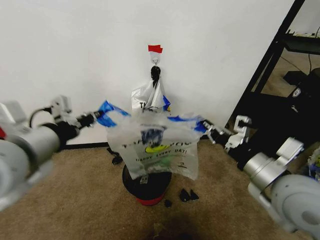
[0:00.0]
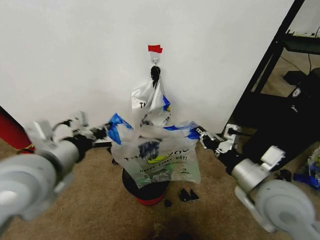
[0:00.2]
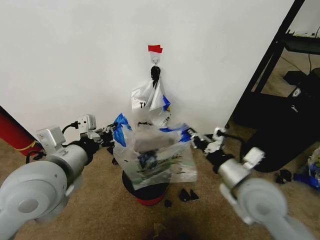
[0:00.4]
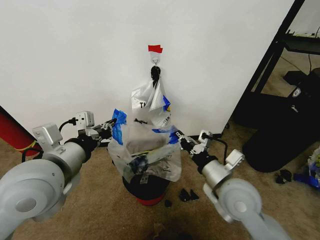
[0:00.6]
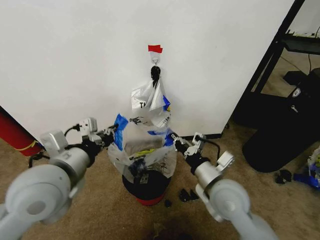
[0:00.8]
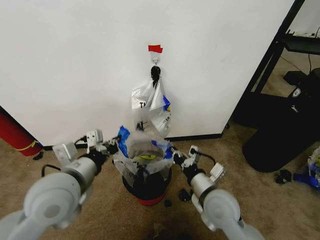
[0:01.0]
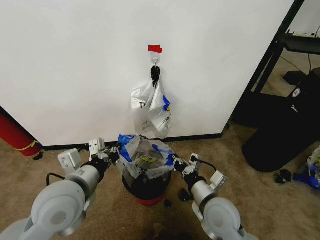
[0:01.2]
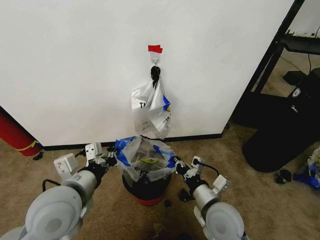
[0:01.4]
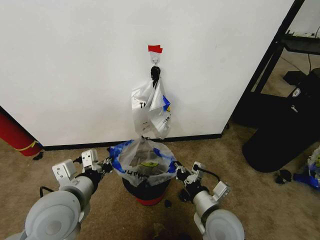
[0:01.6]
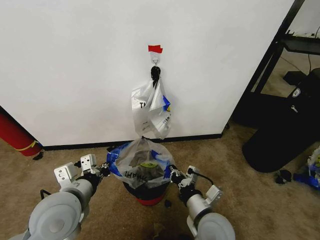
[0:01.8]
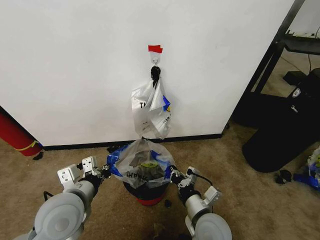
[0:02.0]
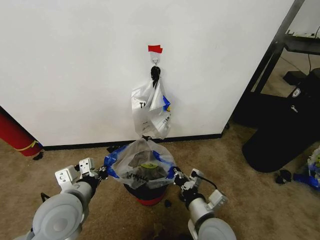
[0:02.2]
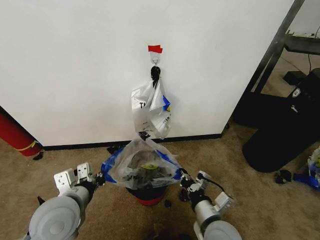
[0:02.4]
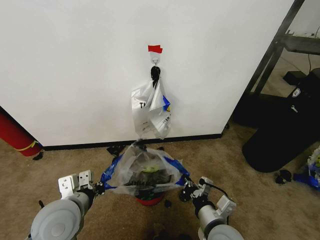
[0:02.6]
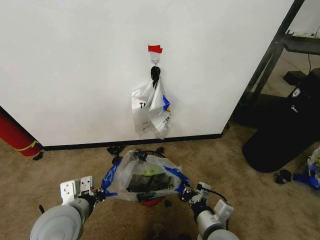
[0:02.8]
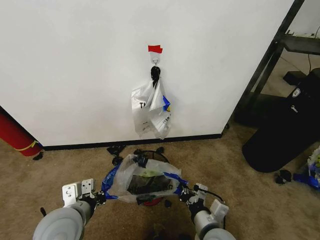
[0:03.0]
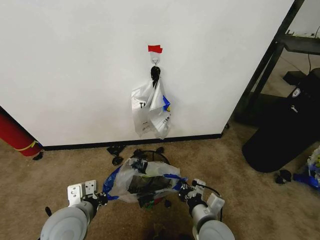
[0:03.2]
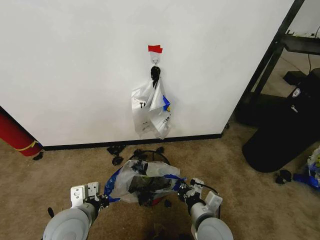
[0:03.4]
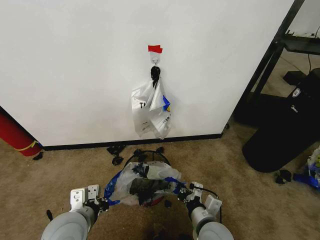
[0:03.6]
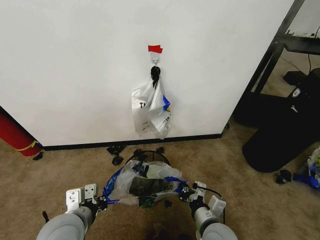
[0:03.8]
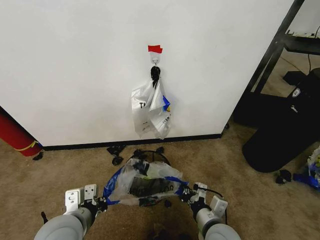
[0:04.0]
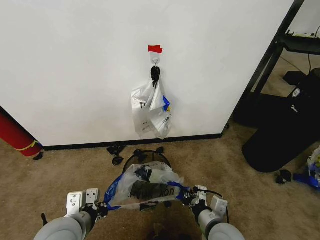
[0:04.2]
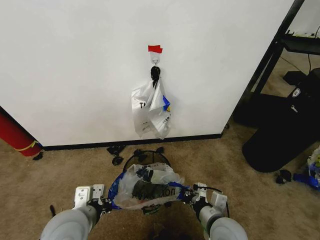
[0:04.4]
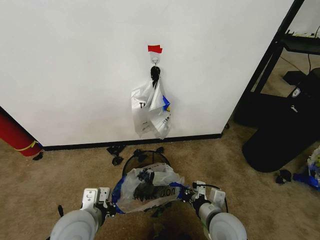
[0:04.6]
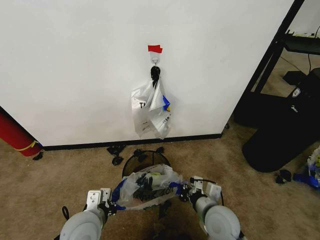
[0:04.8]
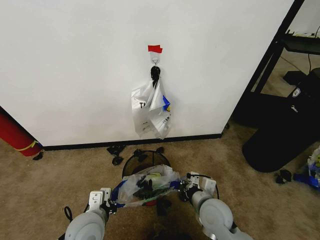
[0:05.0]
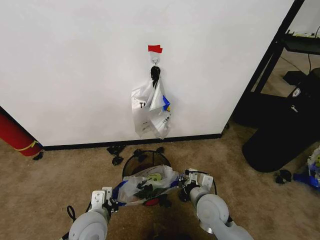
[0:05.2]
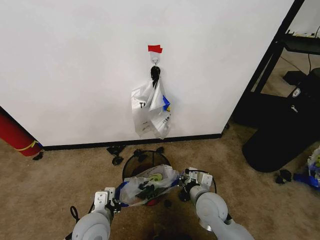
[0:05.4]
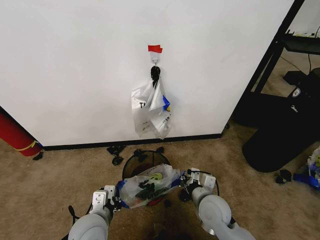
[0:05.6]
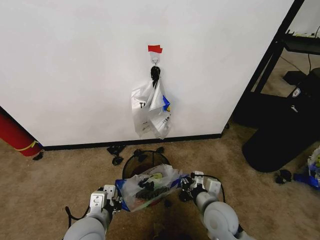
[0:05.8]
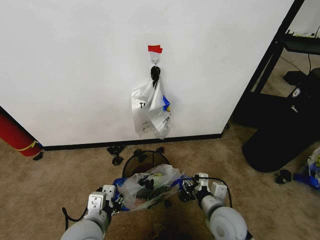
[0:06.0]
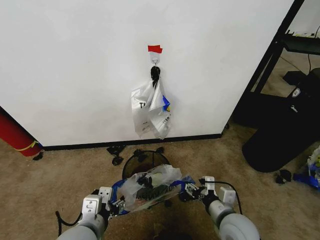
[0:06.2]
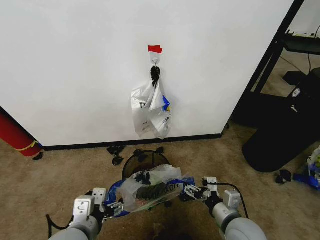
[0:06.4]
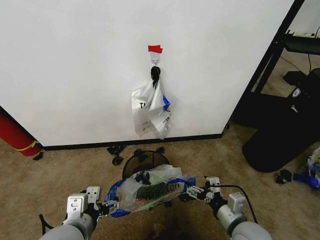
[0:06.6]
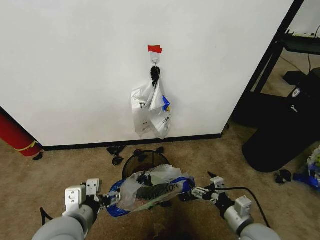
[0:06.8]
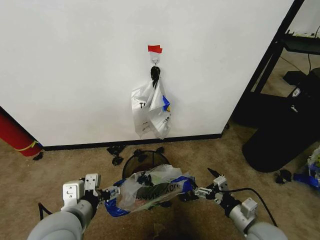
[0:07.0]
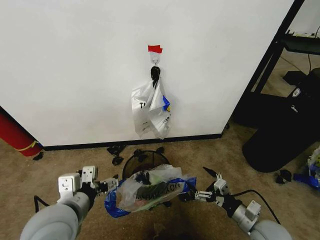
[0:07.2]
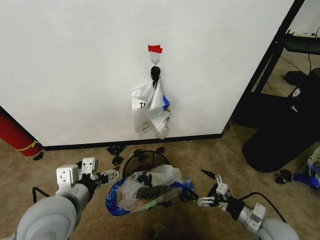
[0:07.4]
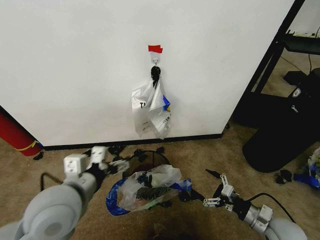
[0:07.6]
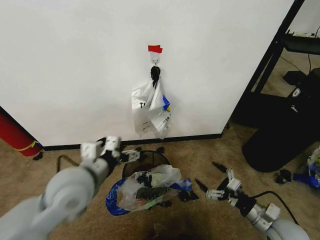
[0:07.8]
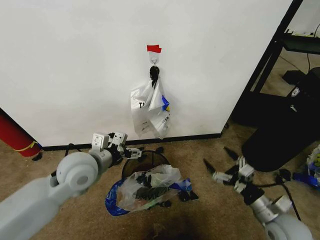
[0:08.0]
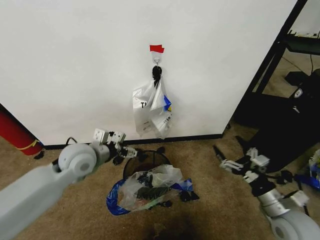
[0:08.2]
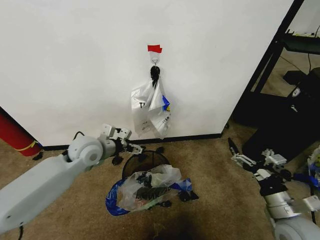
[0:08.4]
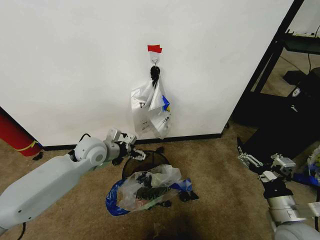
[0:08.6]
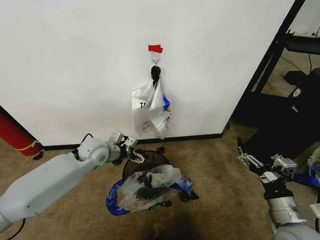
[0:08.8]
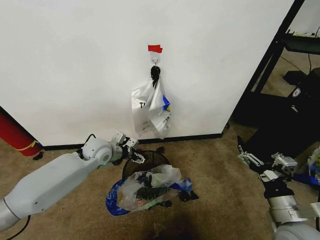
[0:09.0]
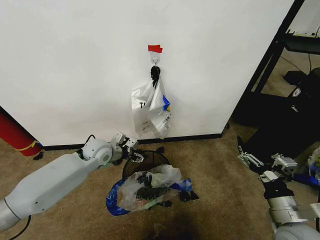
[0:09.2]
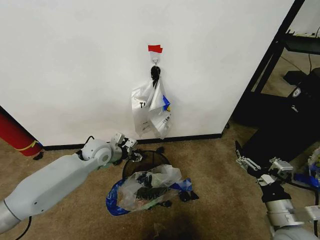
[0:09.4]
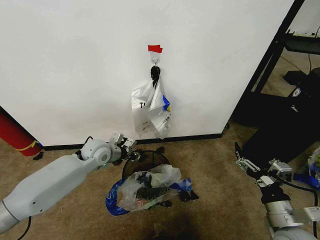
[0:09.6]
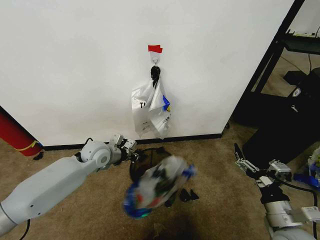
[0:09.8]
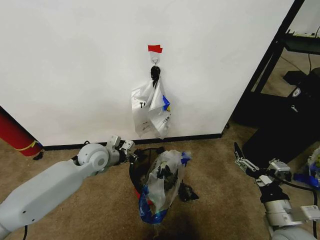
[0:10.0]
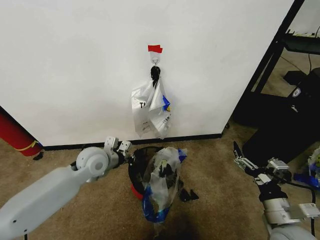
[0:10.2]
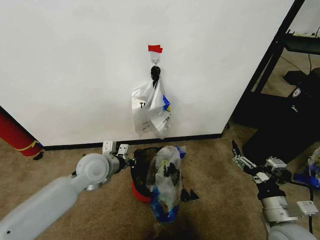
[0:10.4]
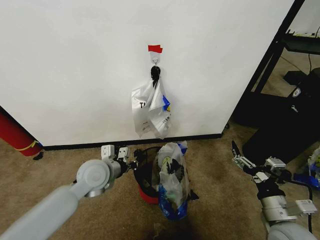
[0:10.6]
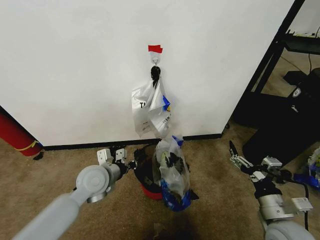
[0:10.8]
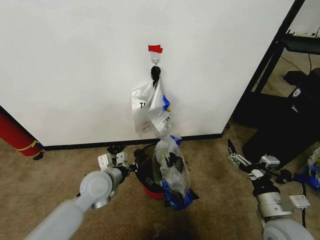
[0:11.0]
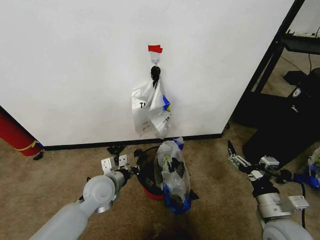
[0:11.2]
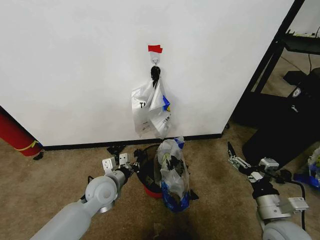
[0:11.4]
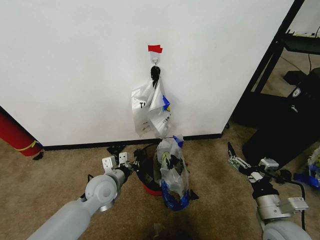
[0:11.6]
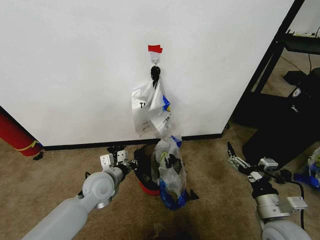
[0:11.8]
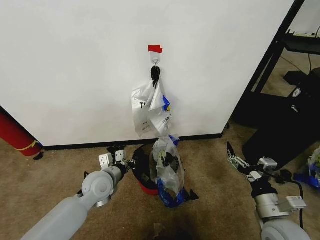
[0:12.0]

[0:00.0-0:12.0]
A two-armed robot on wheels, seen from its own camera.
Task of the whole recording: Pick up the garbage bag from the wall and place it over the trash bin.
0:00.0 to 0:01.6: The right gripper shifts approximately 20 cm downward and to the left; the left gripper goes some 15 cm downward.
0:01.6 to 0:03.0: The right gripper moves approximately 5 cm, while the left gripper shifts some 5 cm downward.
0:03.0 to 0:04.4: The grippers move only a little.
0:04.4 to 0:06.0: The right gripper reaches some 10 cm forward, then returns, and opens up. Meanwhile the left gripper travels downward and back again, some 10 cm each way, and opens up.
0:06.0 to 0:07.6: The left gripper goes about 10 cm upward, and opens; the right gripper is displaced to the right by some 15 cm, and opens up.
0:07.6 to 0:09.0: The left gripper is displaced forward and downward by about 25 cm. Meanwhile the right gripper is displaced upward by some 10 cm.
0:09.0 to 0:10.4: The left gripper shifts about 10 cm backward, and closes up.
0:10.4 to 0:12.0: The left gripper heads downward, covering approximately 5 cm.

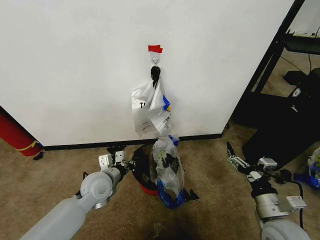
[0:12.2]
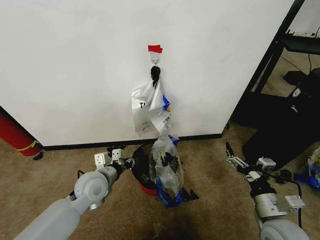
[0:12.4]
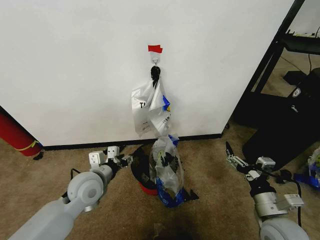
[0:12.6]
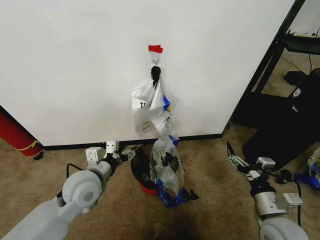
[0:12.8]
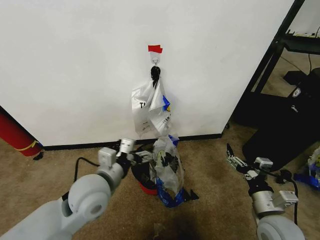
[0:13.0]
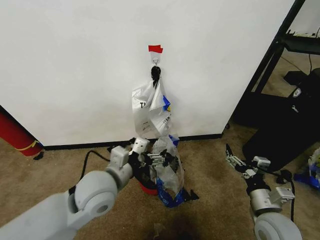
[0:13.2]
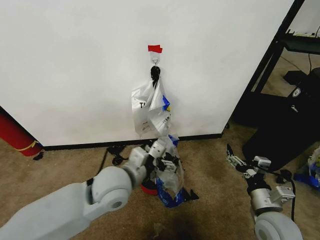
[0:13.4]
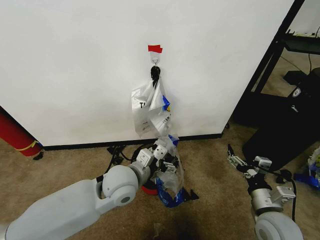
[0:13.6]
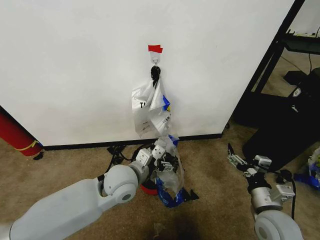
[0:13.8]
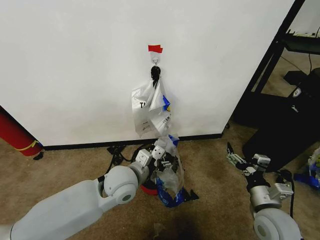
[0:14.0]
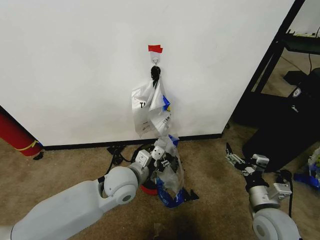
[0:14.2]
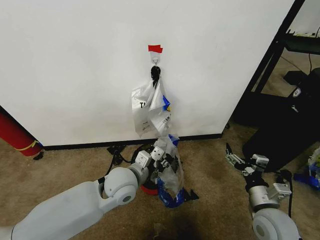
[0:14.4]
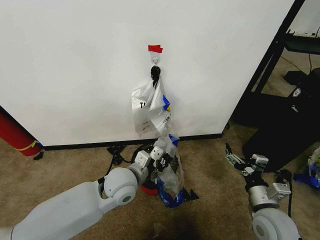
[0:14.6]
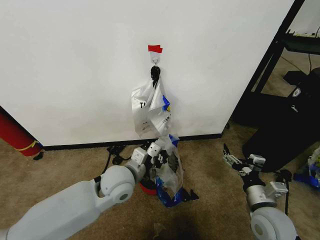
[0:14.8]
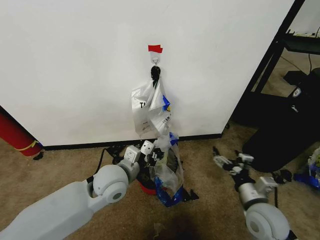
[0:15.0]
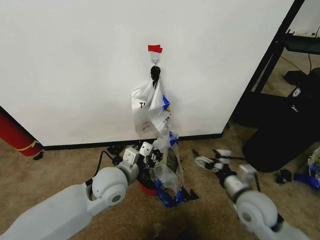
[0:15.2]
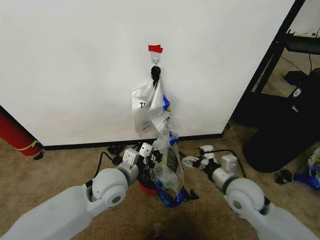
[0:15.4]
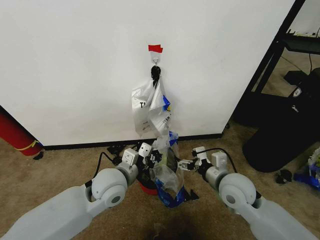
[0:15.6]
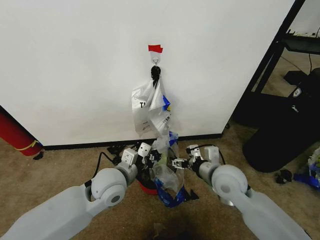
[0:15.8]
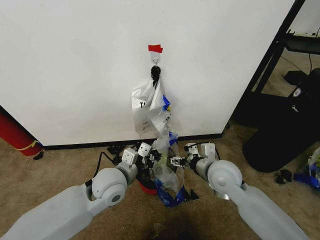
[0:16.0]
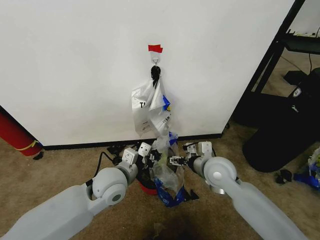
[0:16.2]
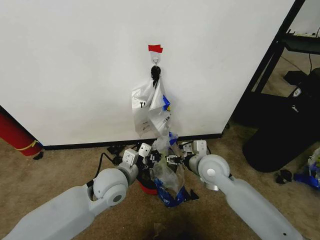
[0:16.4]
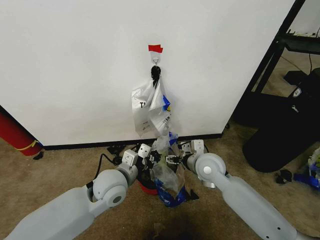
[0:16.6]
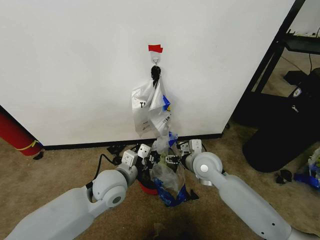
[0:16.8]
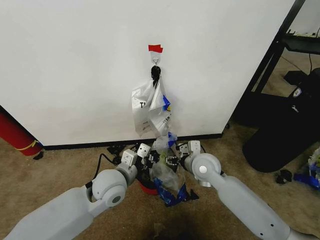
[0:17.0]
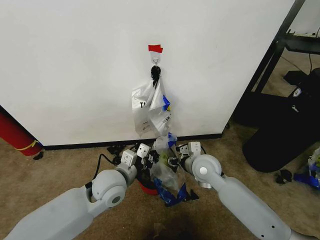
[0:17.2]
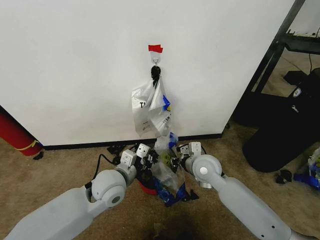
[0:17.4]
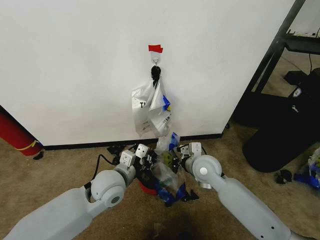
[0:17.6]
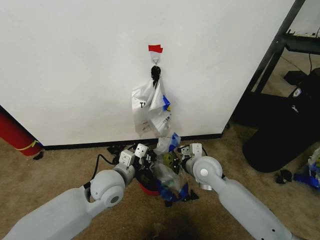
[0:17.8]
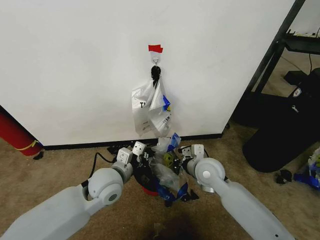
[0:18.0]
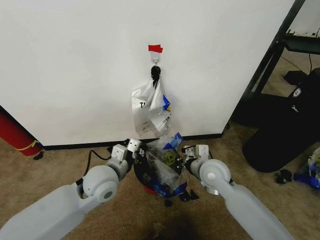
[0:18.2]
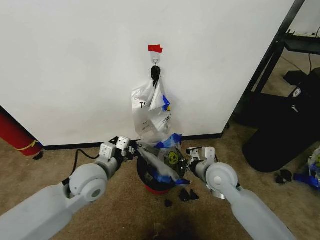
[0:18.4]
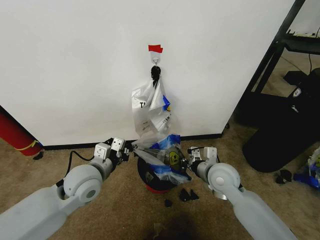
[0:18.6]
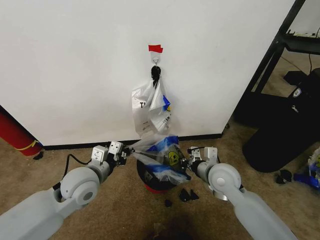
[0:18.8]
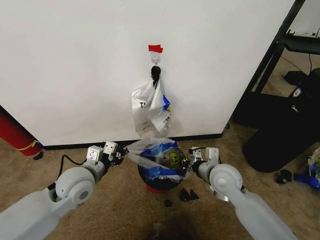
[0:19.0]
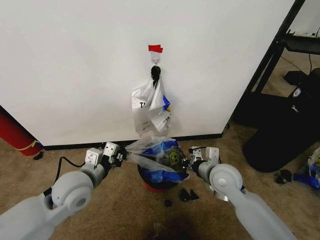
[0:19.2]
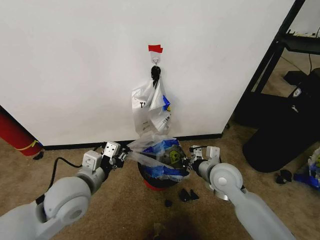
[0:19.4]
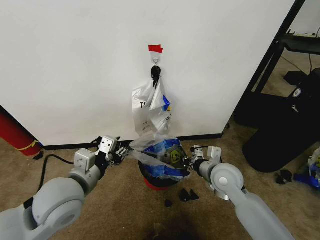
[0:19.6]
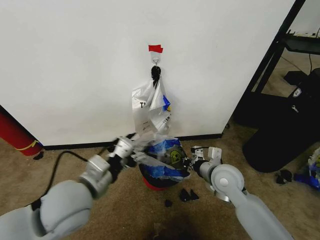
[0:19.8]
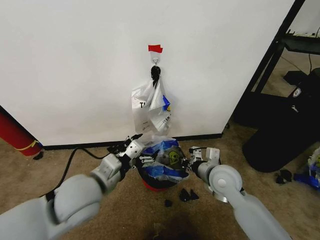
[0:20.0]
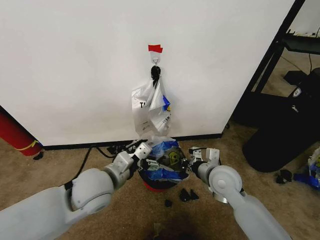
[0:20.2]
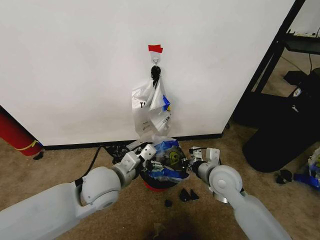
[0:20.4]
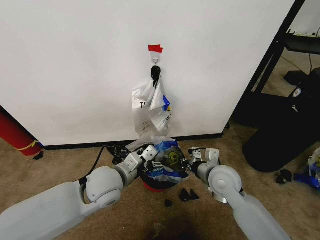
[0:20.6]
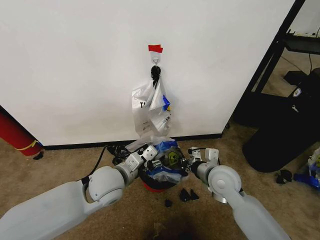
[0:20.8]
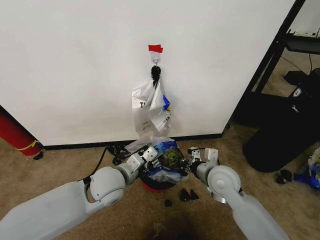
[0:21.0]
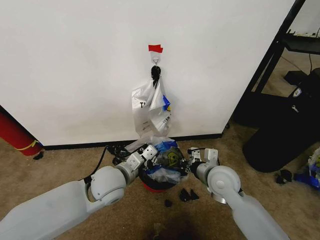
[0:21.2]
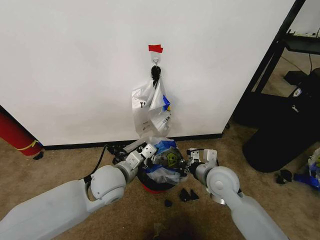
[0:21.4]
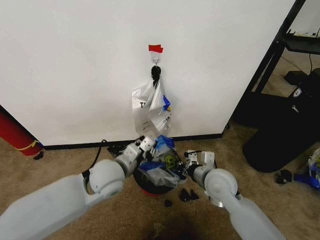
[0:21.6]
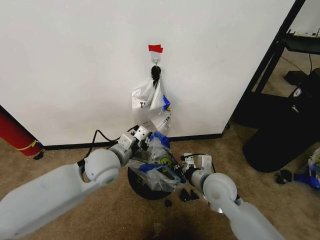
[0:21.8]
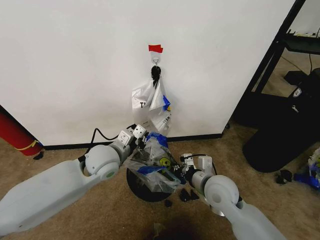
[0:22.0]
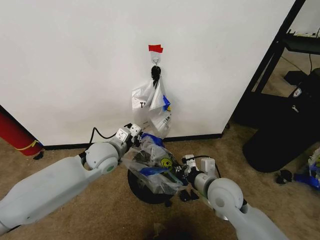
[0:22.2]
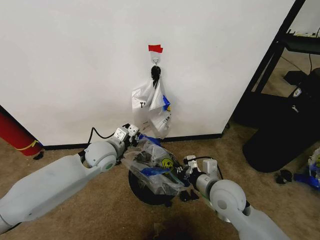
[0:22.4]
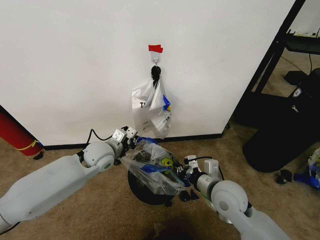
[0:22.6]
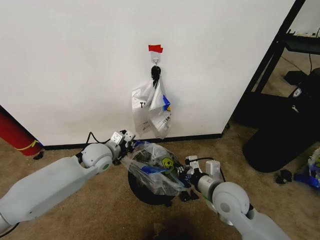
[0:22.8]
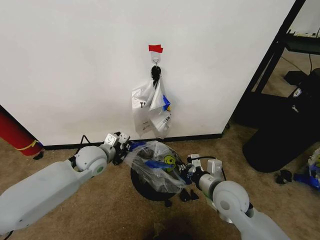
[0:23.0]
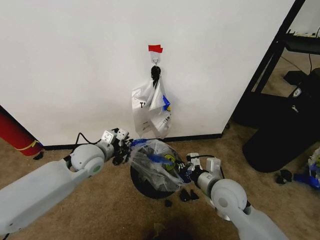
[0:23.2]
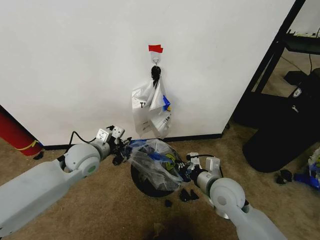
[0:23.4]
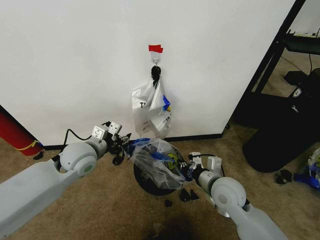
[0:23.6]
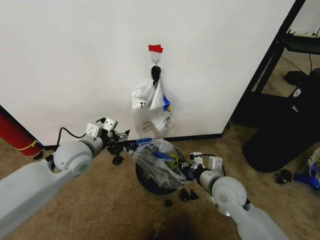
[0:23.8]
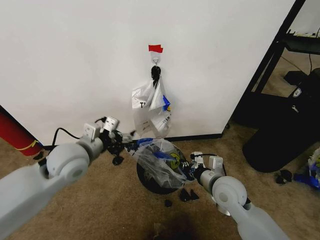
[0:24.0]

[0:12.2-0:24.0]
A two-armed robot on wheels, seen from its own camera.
Task of the whole recording: Pick up the garbage bag from the wall and place it over the trash bin.
0:12.2 to 0:13.6: The left gripper moves to the right and upward, about 15 cm, and opens up.
0:13.6 to 0:15.2: The right gripper shifts by approximately 5 cm. Meanwhile the left gripper closes up.
0:15.2 to 0:16.6: The right gripper is displaced forward and to the left by some 15 cm.
0:16.6 to 0:18.2: The right gripper closes.
0:18.2 to 0:19.6: The left gripper moves backward and upward, roughly 10 cm, and opens.
0:19.6 to 0:21.0: The left gripper travels downward, forward and to the right by approximately 15 cm, and opens, then closes once more.
0:21.0 to 0:22.6: The left gripper shifts approximately 10 cm forward and to the left. Meanwhile the right gripper moves backward, roughly 5 cm.
0:22.6 to 0:24.0: The left gripper shifts roughly 10 cm upward and backward, and opens up.
